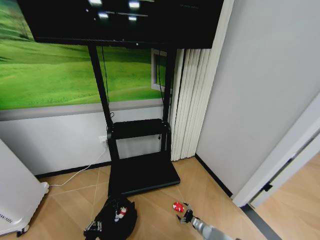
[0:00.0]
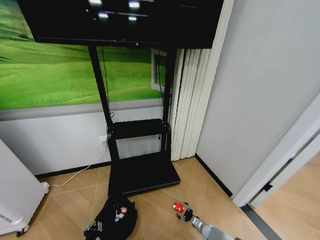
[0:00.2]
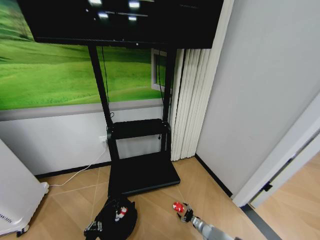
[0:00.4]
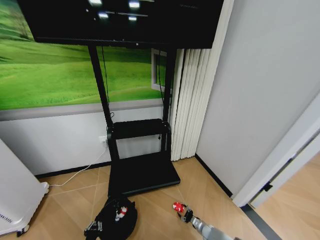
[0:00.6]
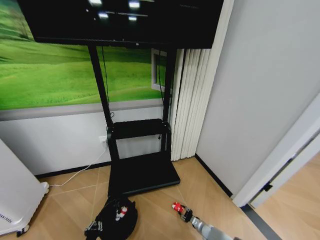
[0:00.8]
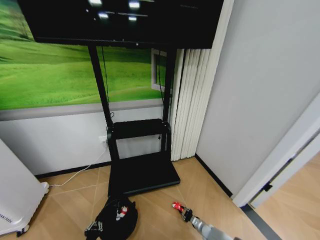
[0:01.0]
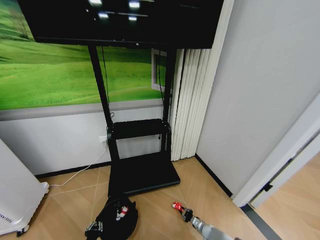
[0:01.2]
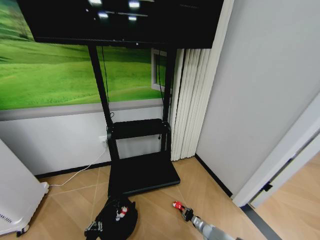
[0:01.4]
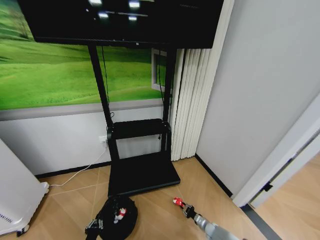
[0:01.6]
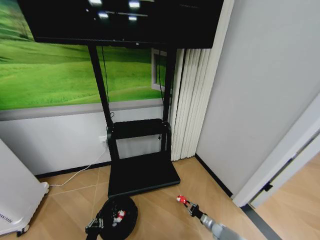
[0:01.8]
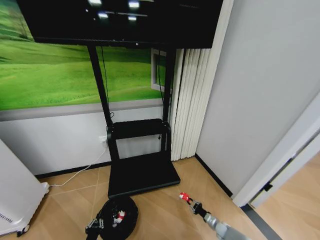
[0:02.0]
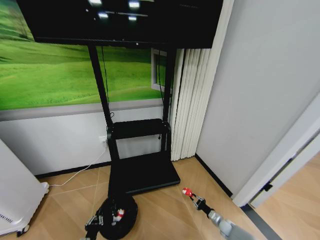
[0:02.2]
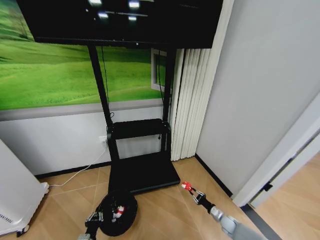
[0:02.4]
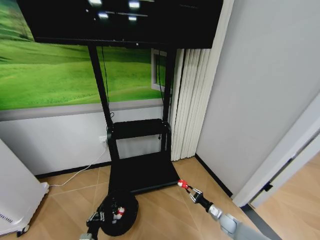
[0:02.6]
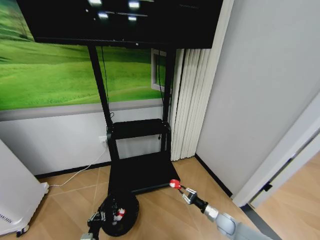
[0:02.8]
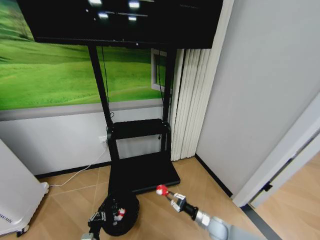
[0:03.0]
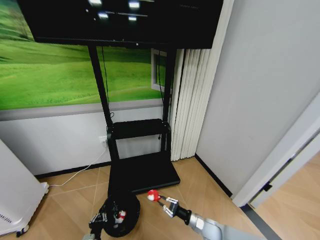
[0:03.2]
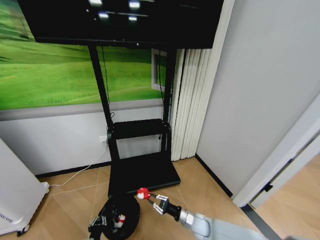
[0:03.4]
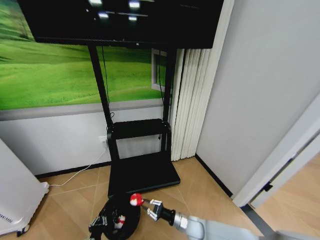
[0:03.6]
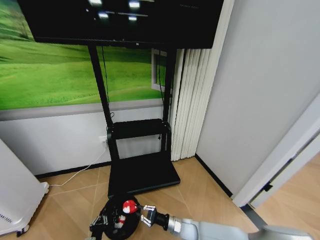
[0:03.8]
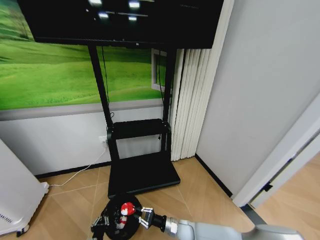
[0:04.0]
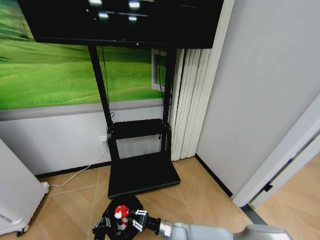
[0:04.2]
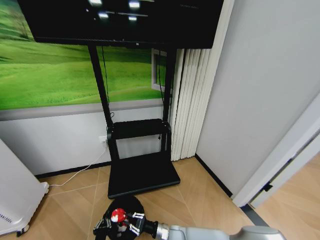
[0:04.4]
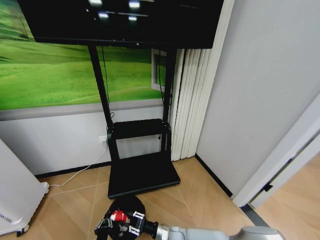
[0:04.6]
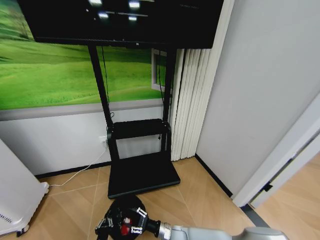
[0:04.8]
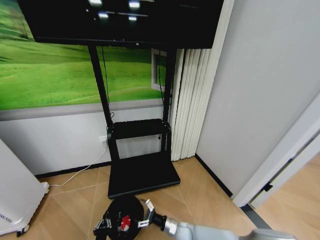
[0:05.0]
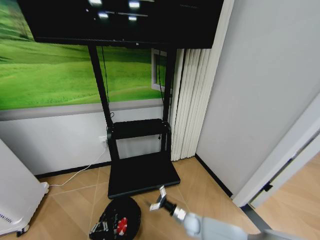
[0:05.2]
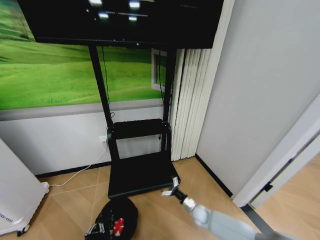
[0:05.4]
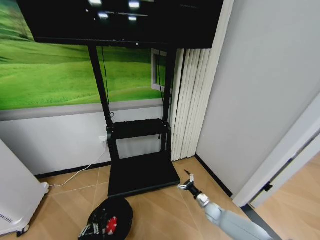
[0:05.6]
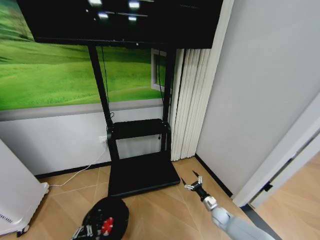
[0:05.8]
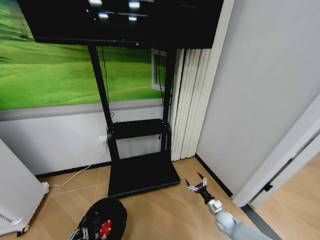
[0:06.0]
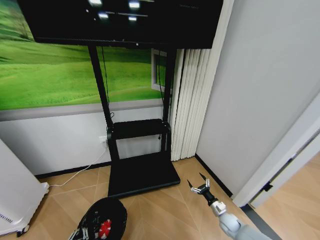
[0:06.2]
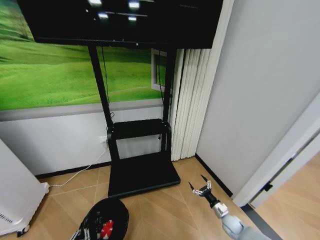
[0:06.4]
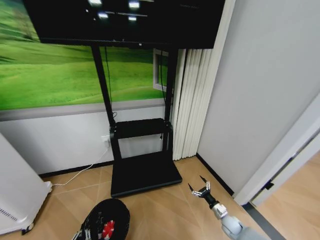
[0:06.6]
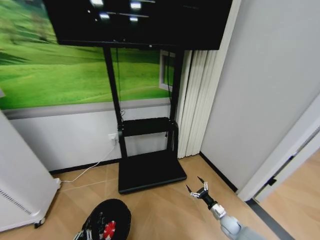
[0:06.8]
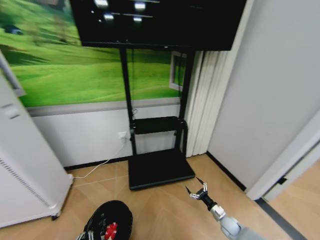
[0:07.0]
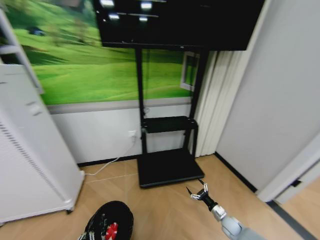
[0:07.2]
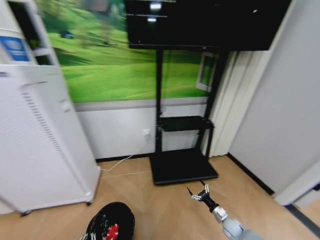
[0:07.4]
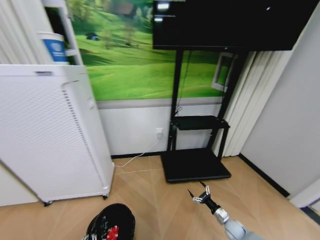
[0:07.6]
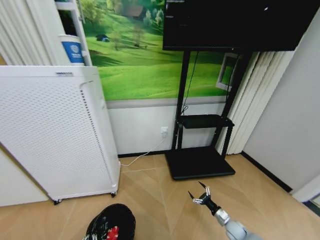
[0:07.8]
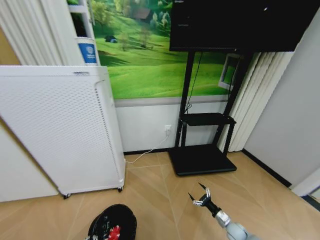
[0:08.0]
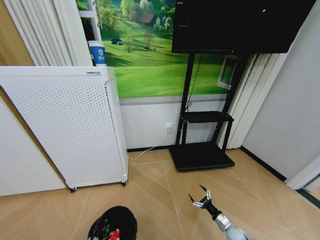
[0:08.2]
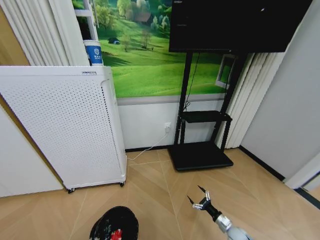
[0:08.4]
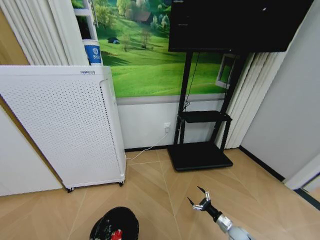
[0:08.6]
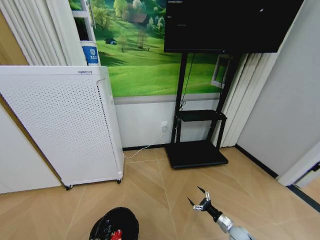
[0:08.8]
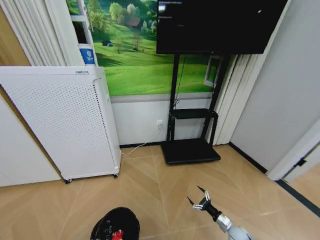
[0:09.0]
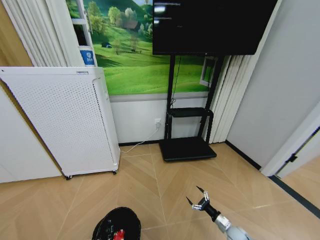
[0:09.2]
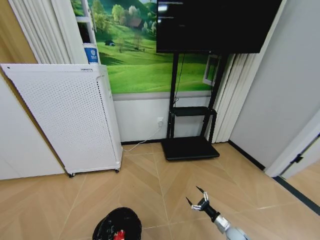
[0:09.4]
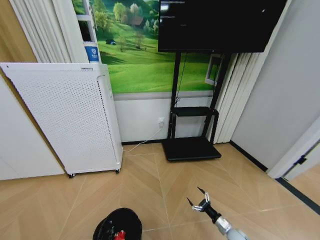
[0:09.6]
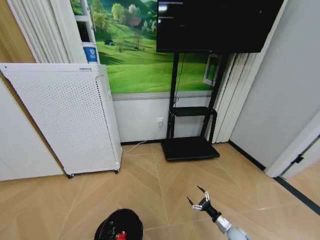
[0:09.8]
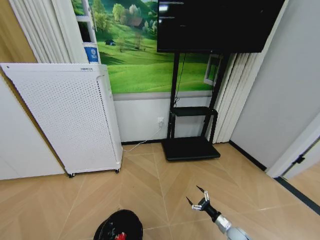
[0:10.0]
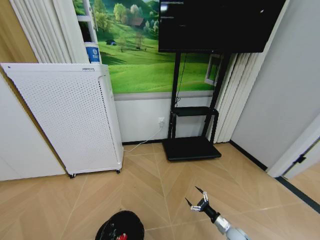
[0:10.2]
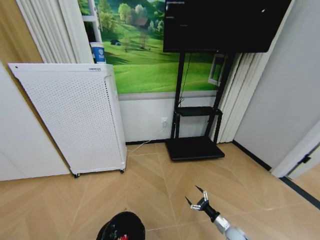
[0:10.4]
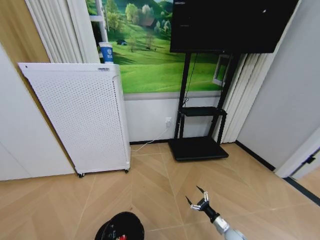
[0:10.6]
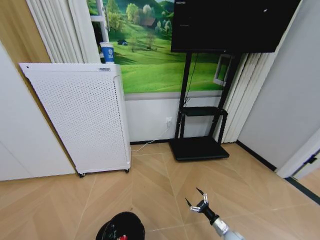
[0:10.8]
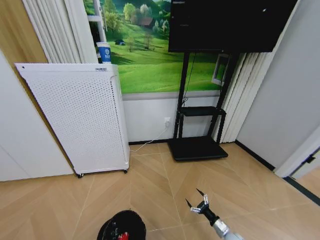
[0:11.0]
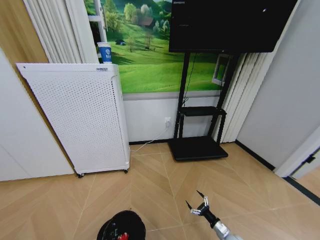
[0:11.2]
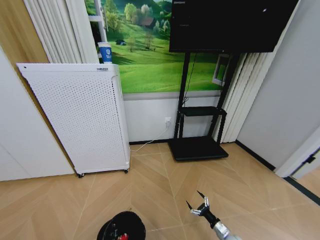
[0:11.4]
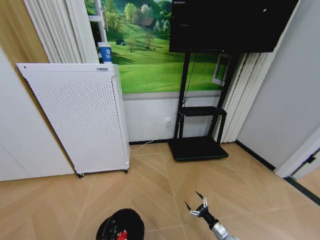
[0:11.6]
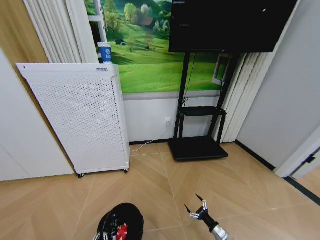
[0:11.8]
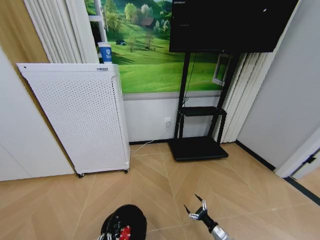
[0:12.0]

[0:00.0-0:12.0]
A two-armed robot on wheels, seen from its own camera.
Task of the whole recording: Pick up the trash bin and place the garbage on the floor into it.
0:00.0 to 0:01.6: The right gripper closes up.
0:01.6 to 0:03.0: The right gripper moves upward, approximately 15 cm.
0:03.0 to 0:04.4: The right gripper shifts roughly 20 cm to the left.
0:04.4 to 0:06.0: The right gripper is displaced to the right by approximately 25 cm, and opens its fingers. Meanwhile the left gripper travels backward by roughly 5 cm.
0:06.0 to 0:07.6: The right gripper ends up roughly 5 cm from where it was.
0:10.4 to 0:12.0: The right gripper changes place by about 5 cm.

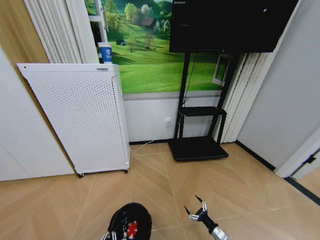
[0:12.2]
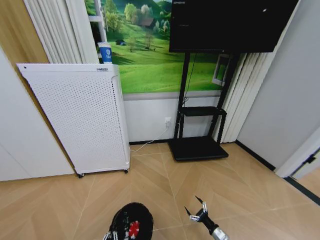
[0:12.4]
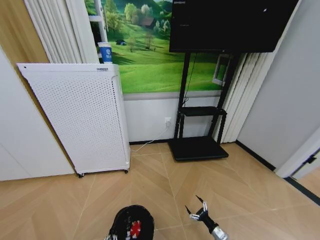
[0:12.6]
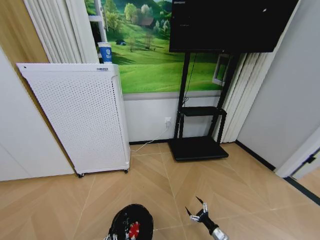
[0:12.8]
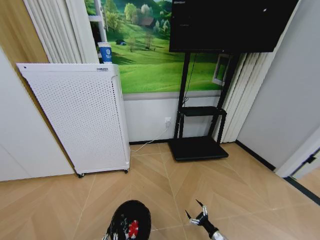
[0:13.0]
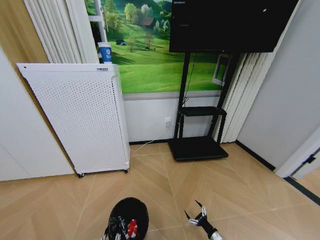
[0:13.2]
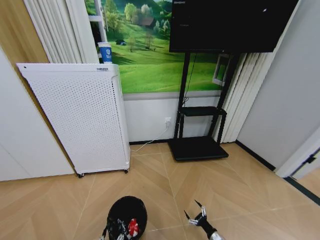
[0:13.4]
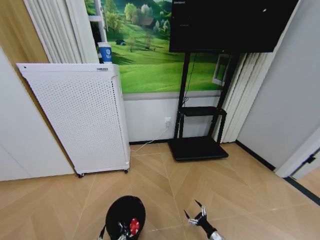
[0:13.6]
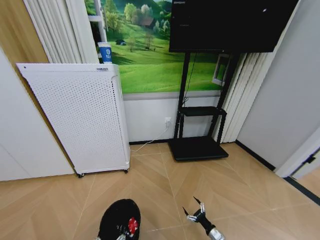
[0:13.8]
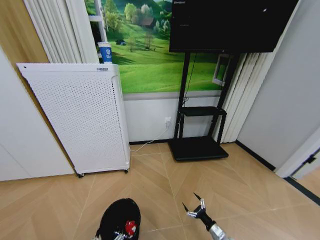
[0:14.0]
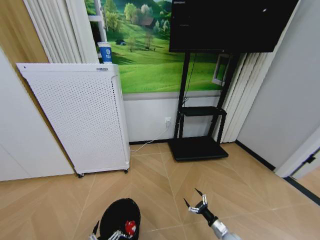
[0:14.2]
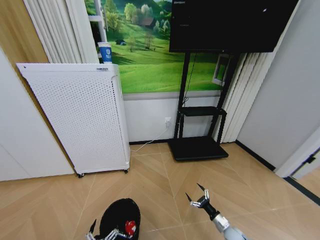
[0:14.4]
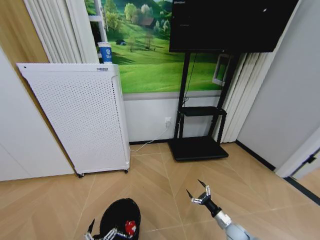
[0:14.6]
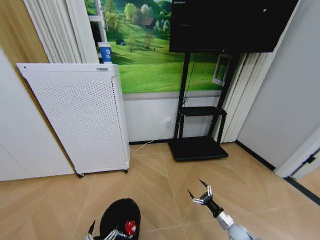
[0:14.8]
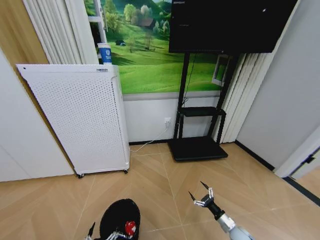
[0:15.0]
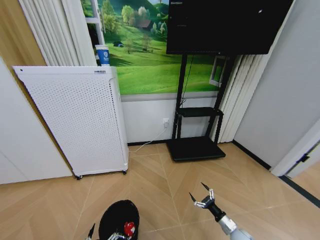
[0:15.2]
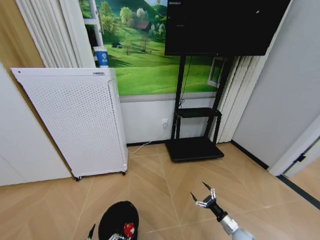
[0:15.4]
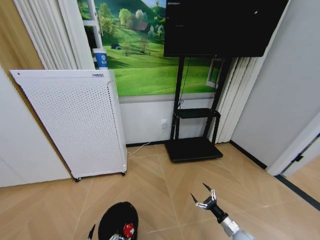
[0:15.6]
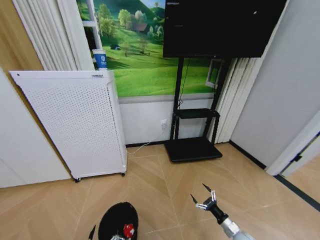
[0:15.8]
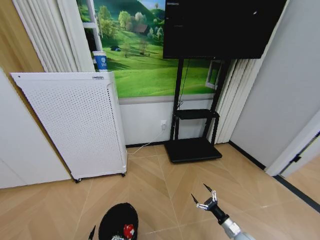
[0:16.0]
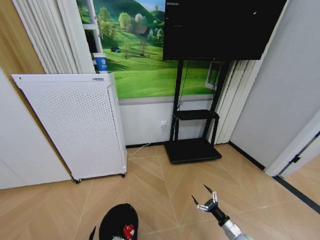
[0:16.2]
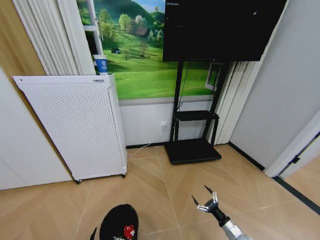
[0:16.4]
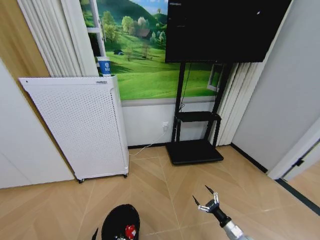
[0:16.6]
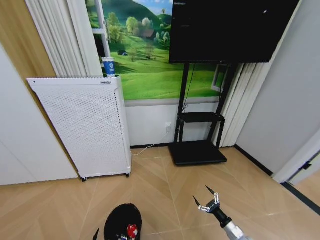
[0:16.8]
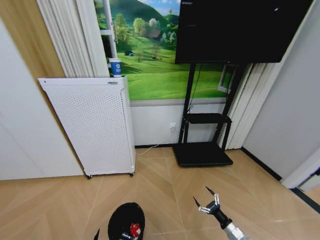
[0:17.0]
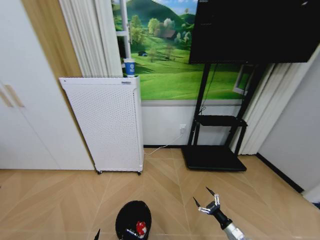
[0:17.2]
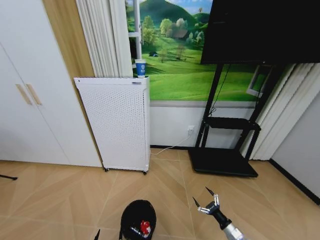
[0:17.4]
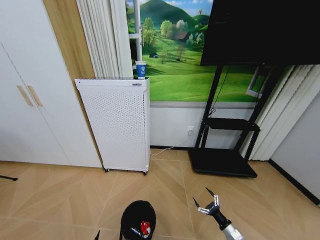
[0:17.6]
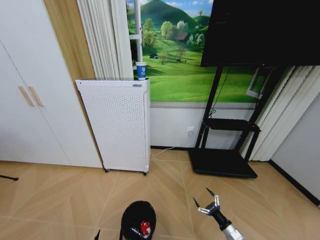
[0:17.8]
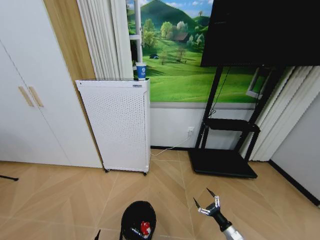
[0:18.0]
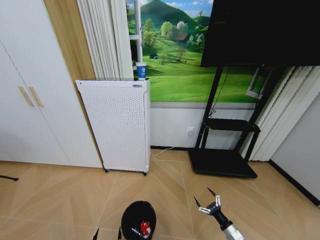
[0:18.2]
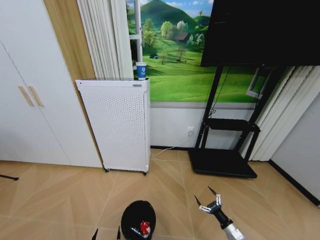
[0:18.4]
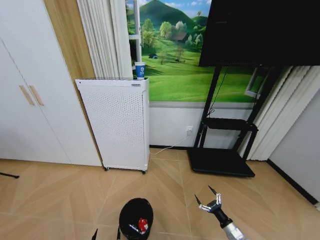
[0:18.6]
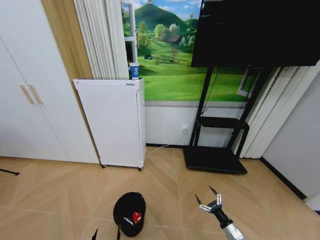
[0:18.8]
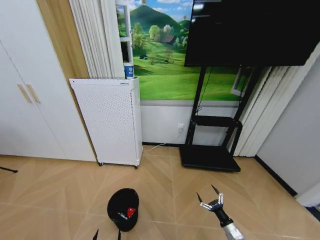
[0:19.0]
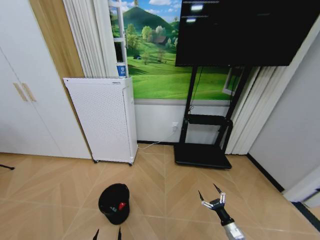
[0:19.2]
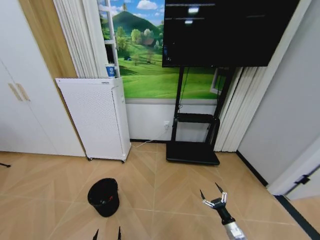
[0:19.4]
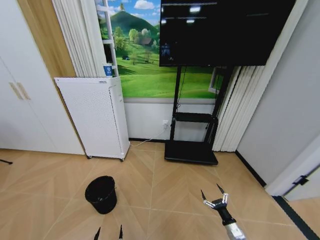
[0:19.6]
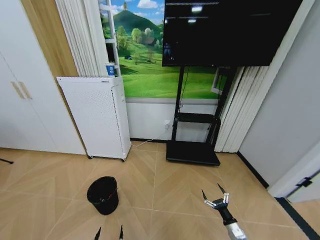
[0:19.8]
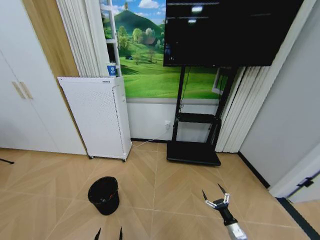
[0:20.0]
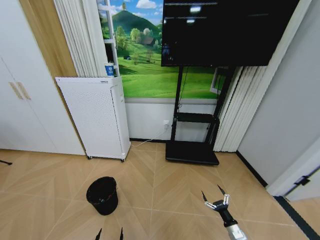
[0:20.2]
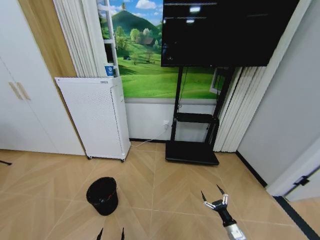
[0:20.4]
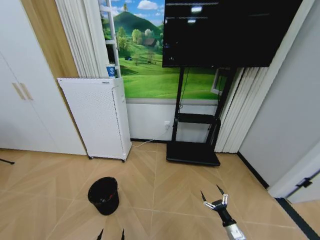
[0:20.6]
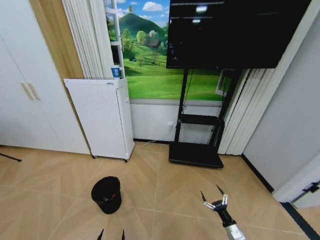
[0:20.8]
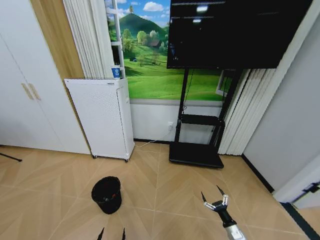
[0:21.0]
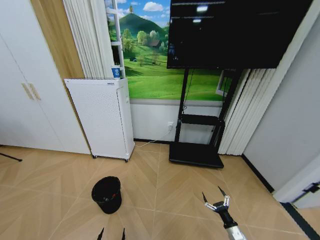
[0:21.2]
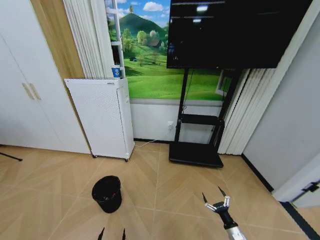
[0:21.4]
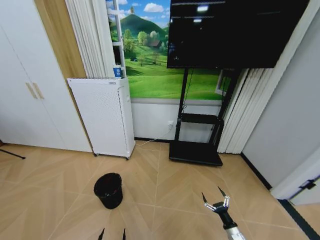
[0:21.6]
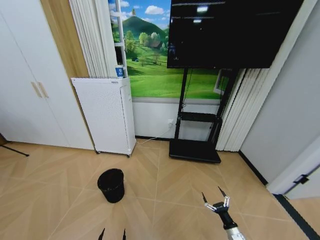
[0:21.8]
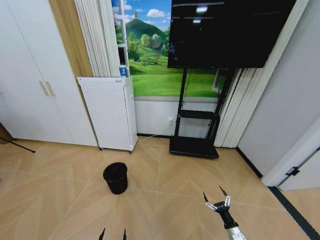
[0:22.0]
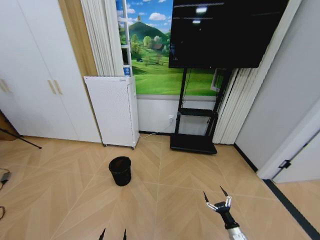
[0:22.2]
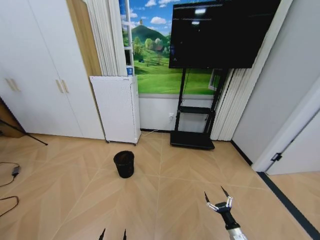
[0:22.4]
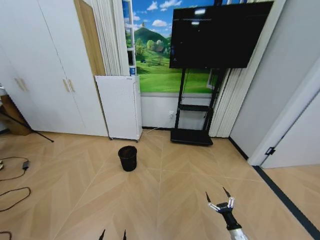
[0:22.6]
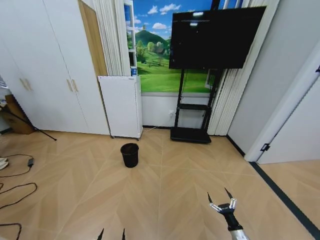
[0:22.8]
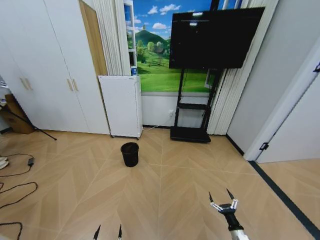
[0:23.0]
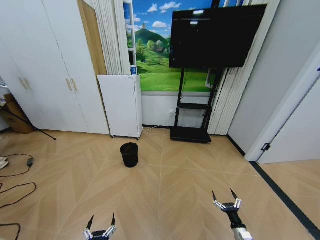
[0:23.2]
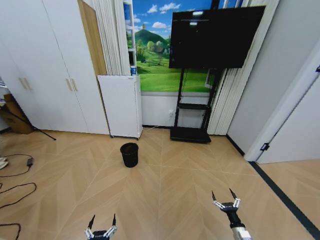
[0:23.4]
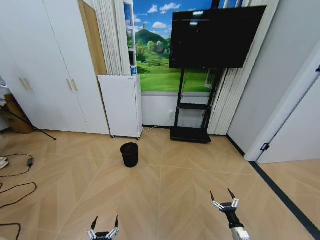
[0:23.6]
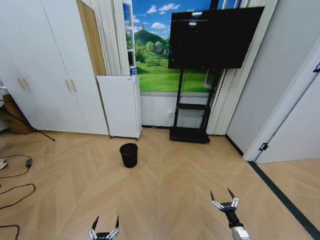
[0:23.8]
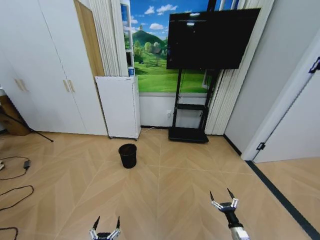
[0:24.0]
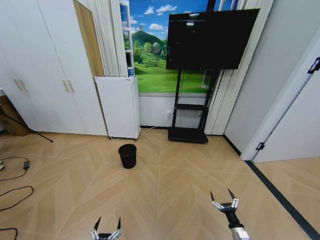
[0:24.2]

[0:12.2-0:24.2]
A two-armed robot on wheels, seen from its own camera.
Task of the whole recording: Pick up the trash bin and place the garbage on the floor into it.
0:12.2 to 0:13.8: The left gripper opens its fingers.
0:13.8 to 0:15.2: The right gripper moves upward, about 10 cm.
0:15.2 to 0:16.6: The grippers make only small movements.
0:19.8 to 0:21.2: The grippers move only a little.
0:22.6 to 0:24.2: The left gripper ends up some 5 cm from where it was.
